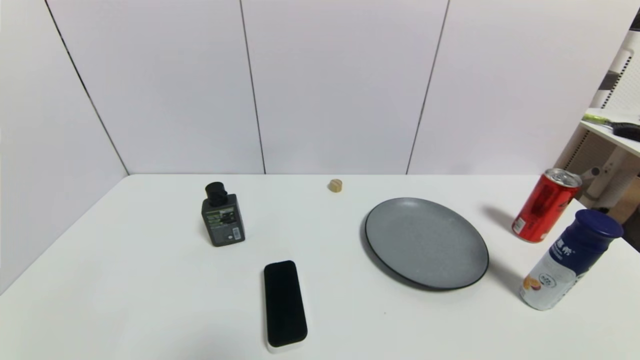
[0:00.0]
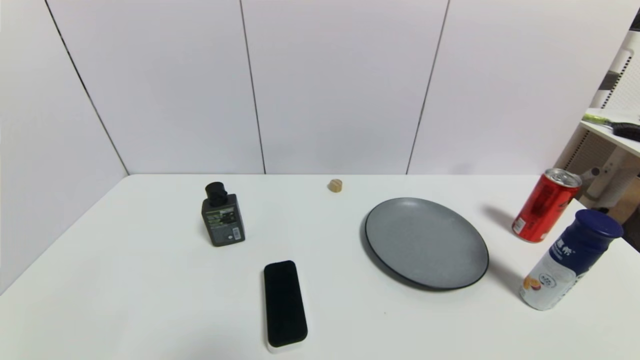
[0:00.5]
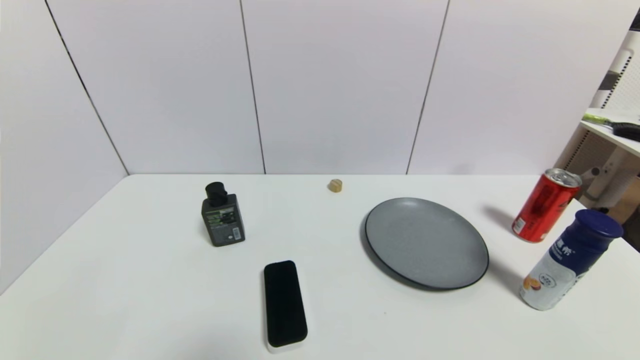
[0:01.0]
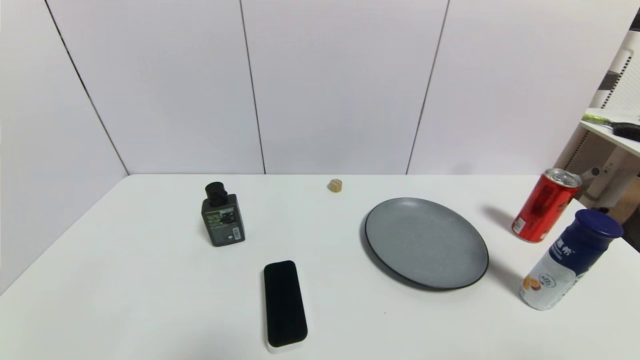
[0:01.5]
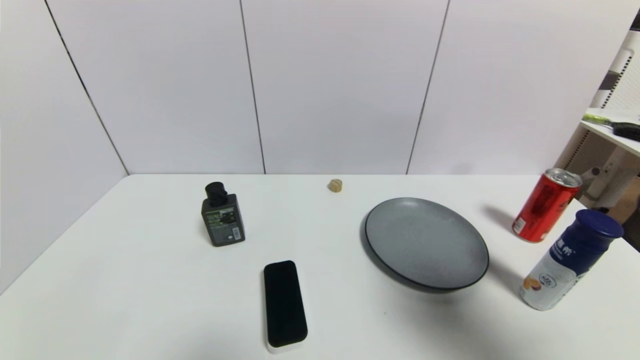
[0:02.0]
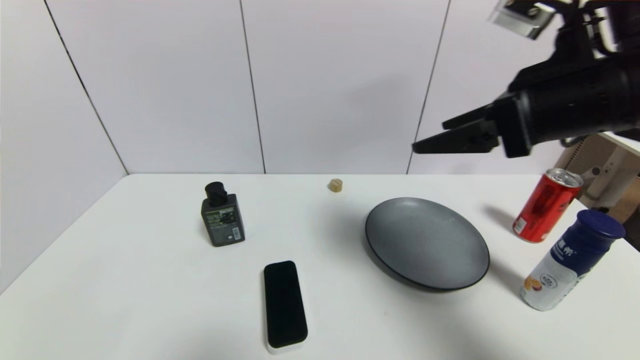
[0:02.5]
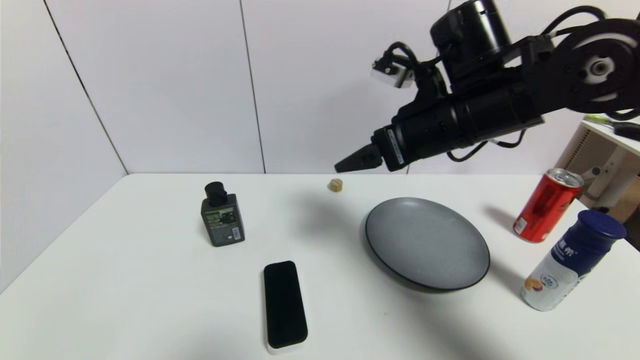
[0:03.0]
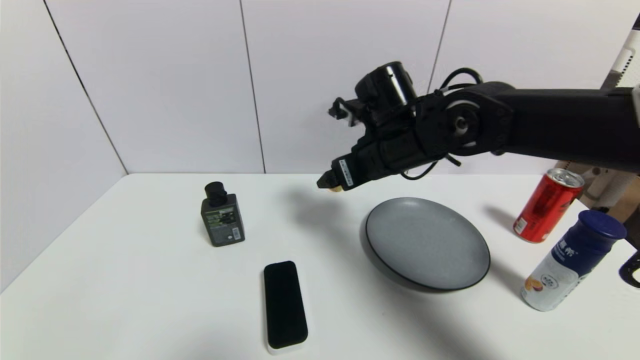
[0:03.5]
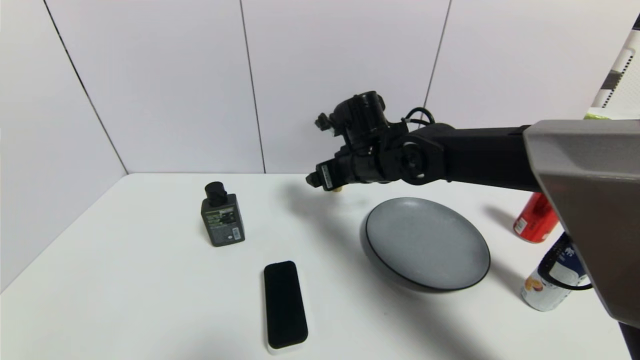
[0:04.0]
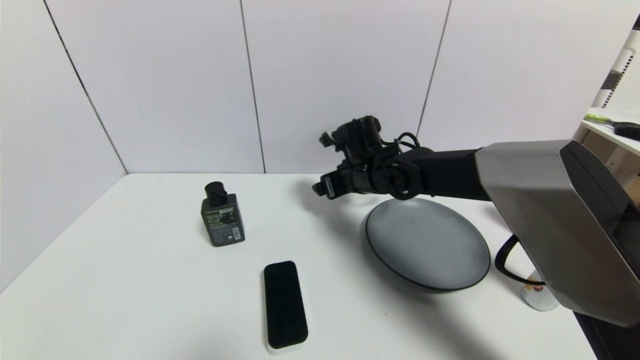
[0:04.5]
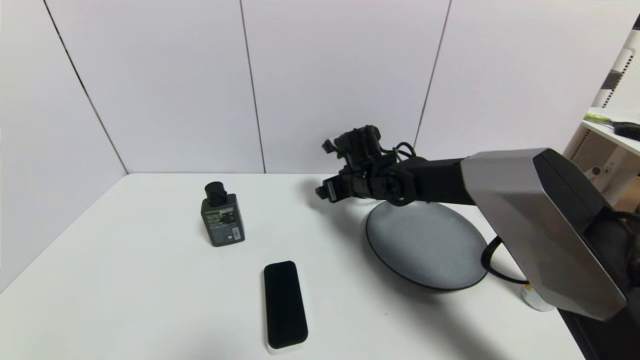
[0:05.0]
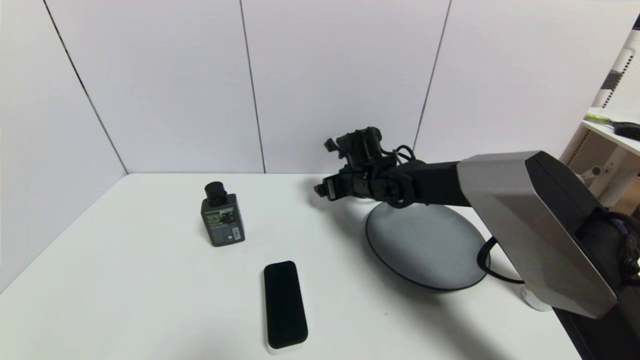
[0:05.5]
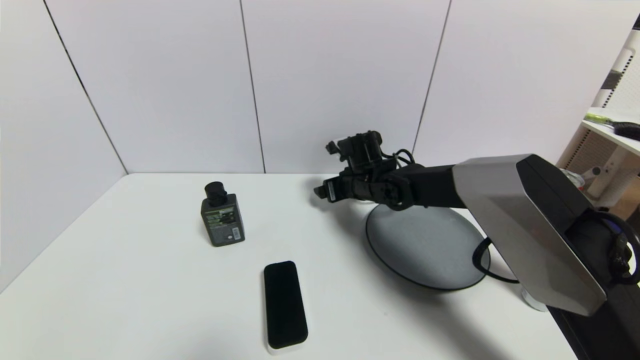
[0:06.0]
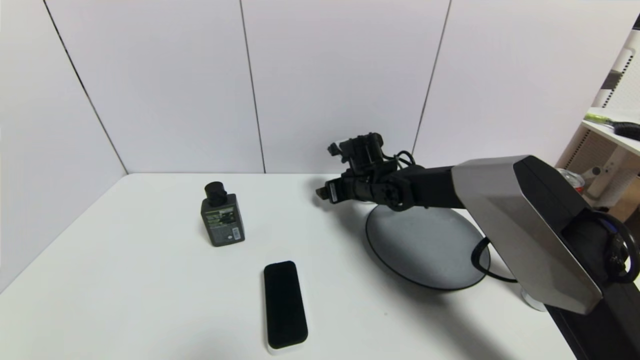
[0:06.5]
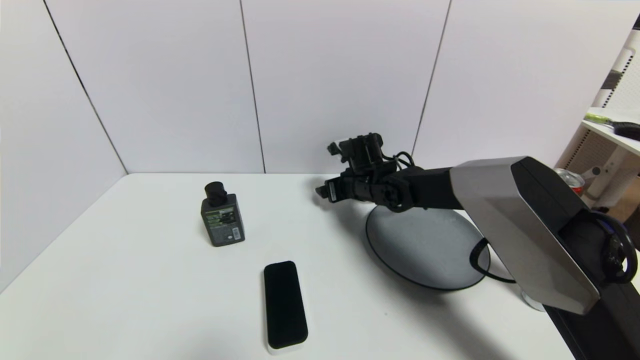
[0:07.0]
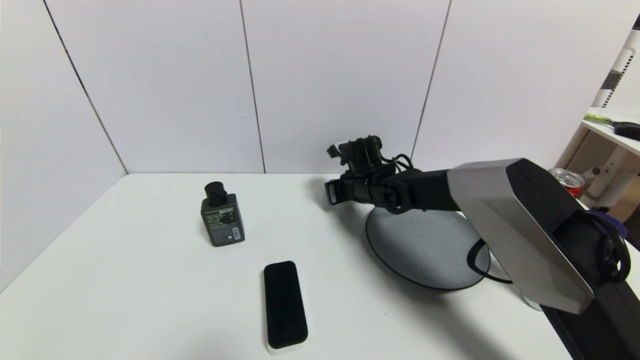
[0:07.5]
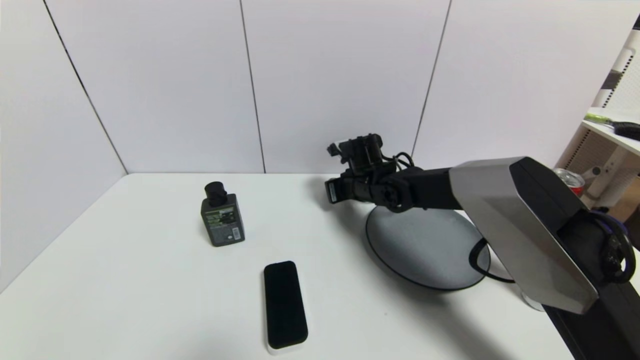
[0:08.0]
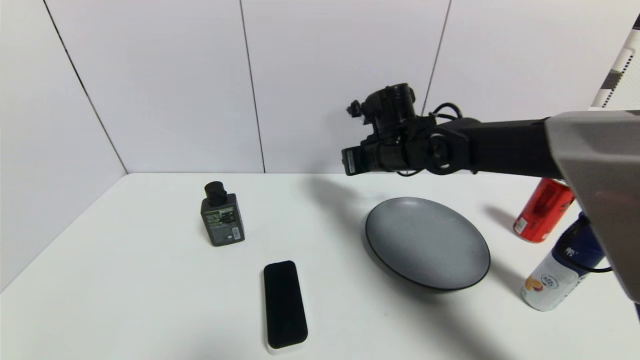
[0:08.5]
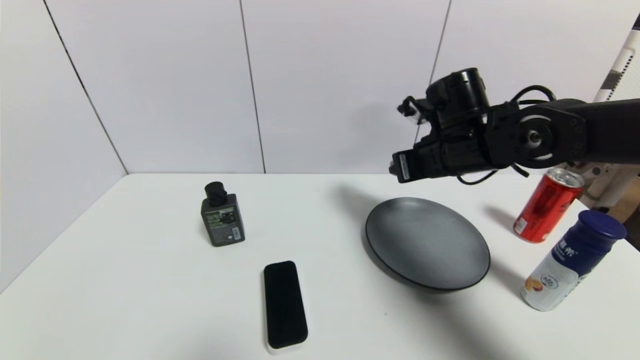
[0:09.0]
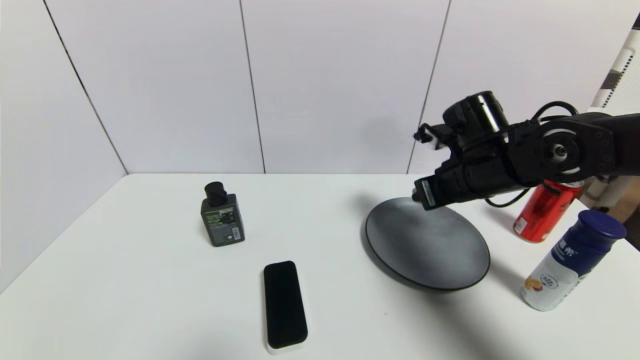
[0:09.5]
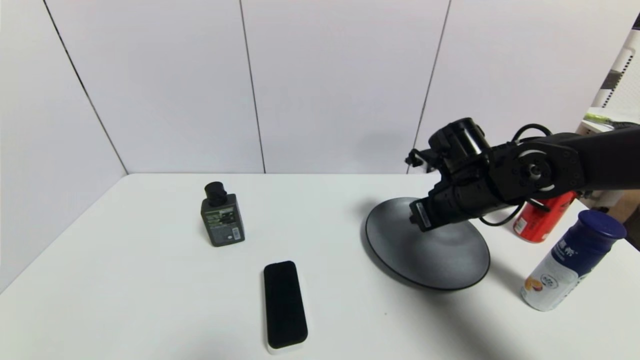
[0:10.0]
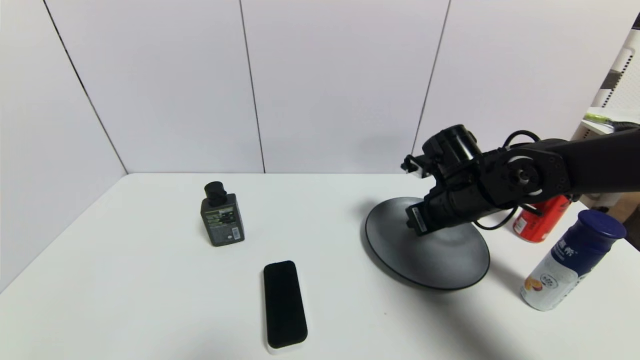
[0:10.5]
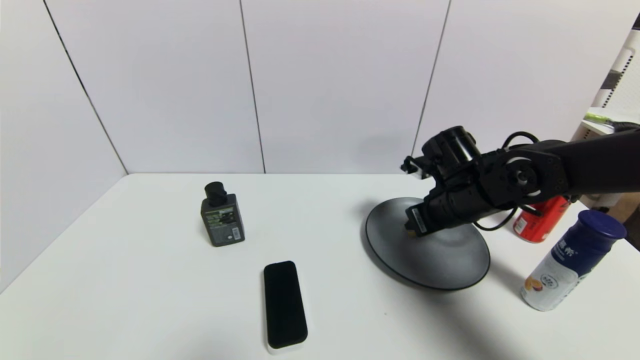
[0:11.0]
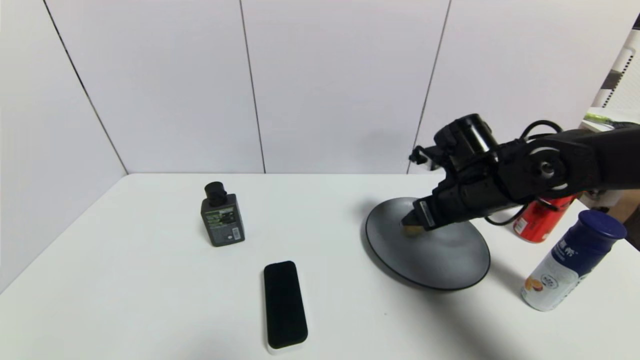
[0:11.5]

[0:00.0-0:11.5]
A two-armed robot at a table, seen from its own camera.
Task of the whole recording: use a gripper to pick the target object and place on the gray plate.
Step, 0:00.0 to 0:07.5: Grasp the round wooden block with the right gripper.
Step, 0:08.0 to 0:11.0: Place the round wooden block on the gray plate with the right gripper.
0:00.0 to 0:02.0: The right gripper heads upward and forward, covering some 30 cm.
0:02.0 to 0:04.0: The right gripper moves forward, to the left and downward, some 40 cm.
0:04.0 to 0:06.0: The right gripper shifts some 10 cm downward and forward.
0:06.0 to 0:07.5: The right gripper closes.
0:07.5 to 0:09.5: The right gripper shifts roughly 20 cm to the right, backward and upward.
0:09.5 to 0:11.5: The right gripper opens up.

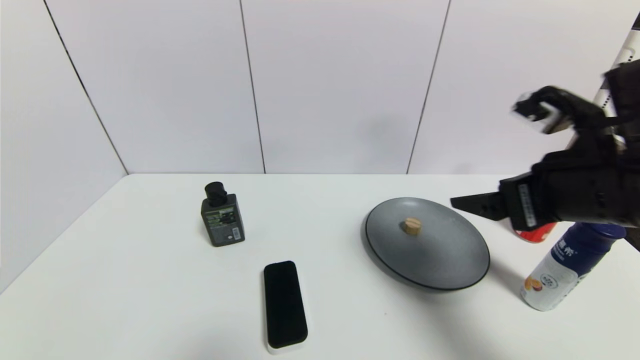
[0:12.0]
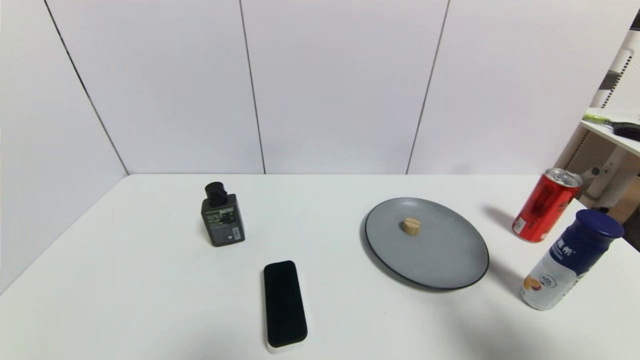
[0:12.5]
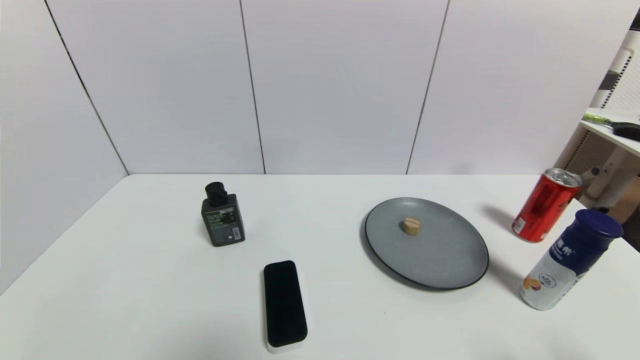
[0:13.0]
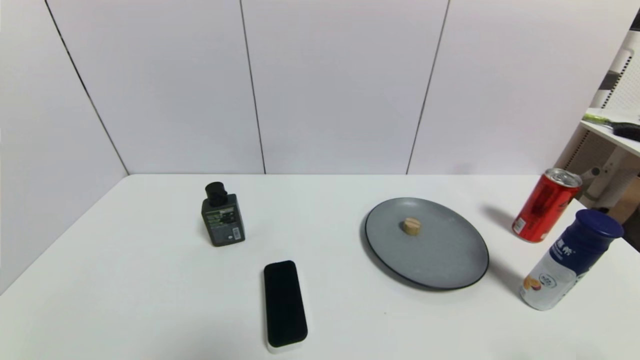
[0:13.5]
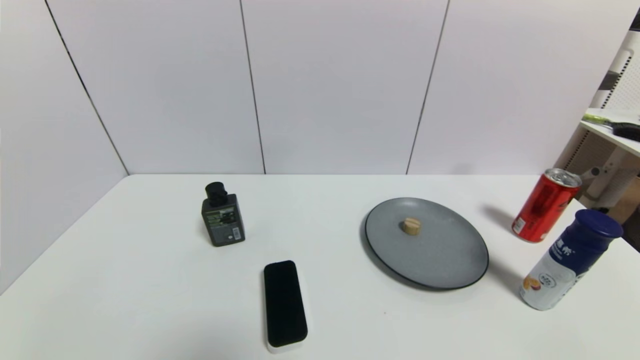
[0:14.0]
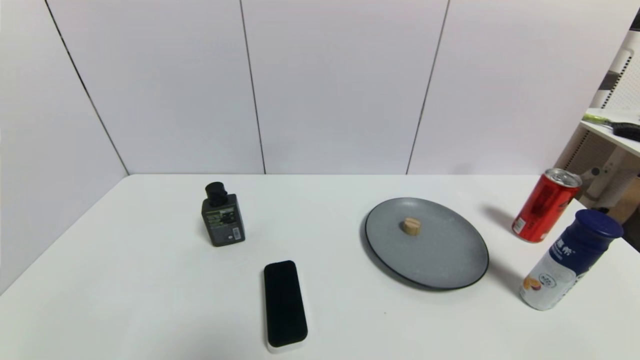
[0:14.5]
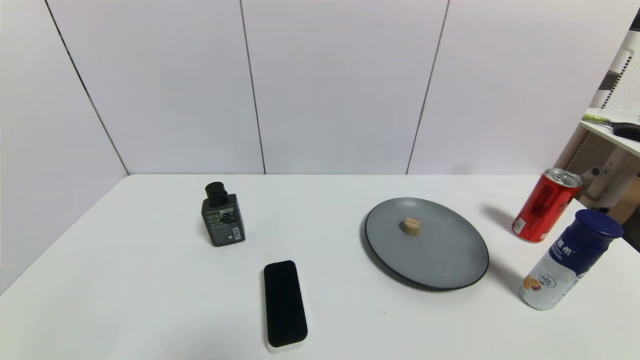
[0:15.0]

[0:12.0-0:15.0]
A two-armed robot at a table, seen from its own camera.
Task of the whole recording: use a gripper to pick the target object and place on the gray plate.
0:12.0 to 0:13.5: The right gripper goes about 25 cm backward, downward and to the right.
